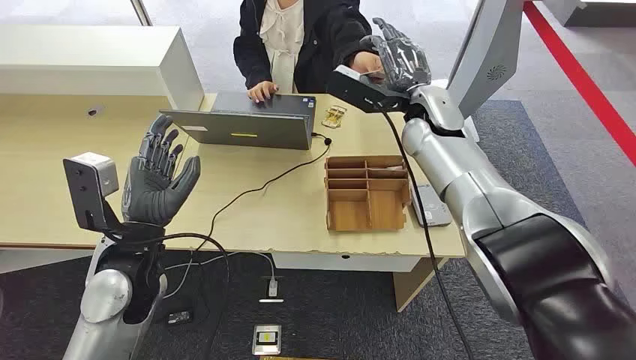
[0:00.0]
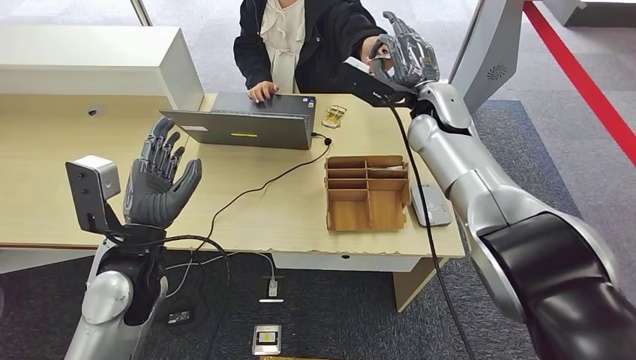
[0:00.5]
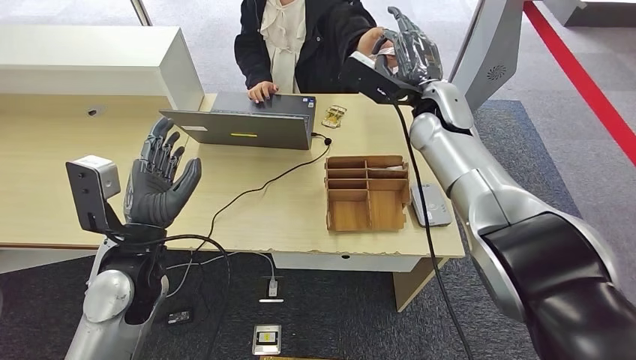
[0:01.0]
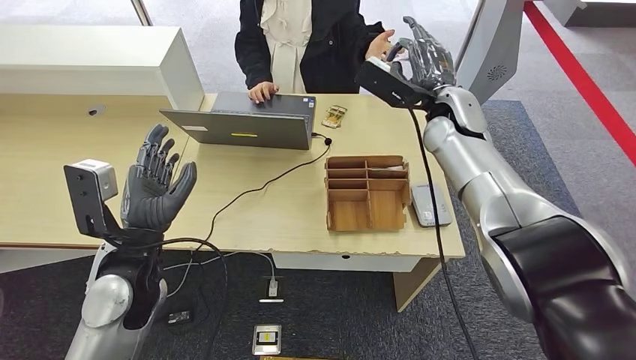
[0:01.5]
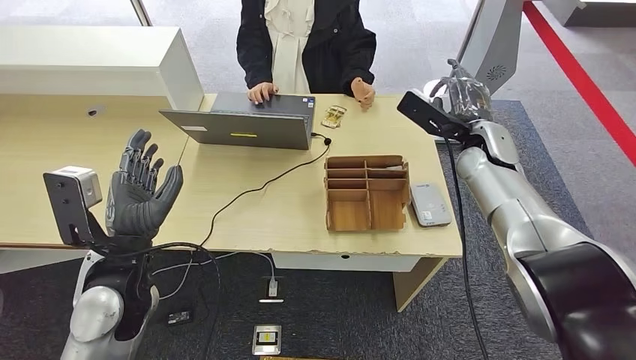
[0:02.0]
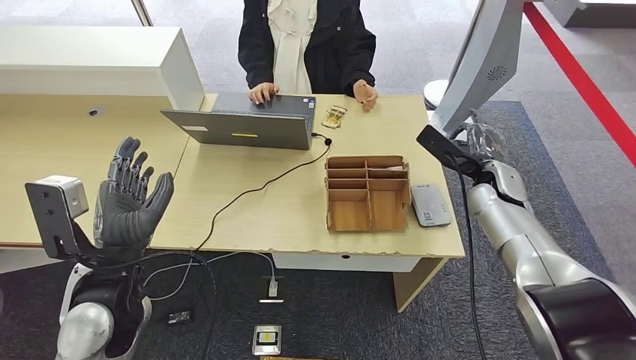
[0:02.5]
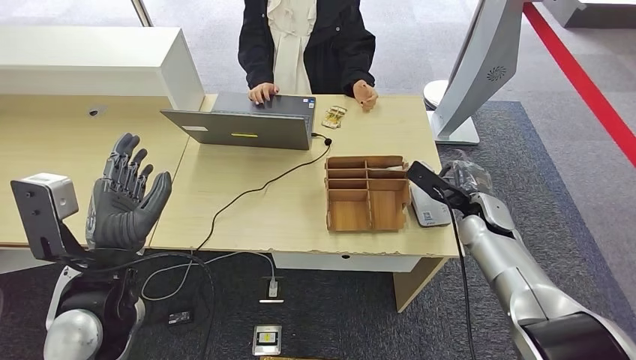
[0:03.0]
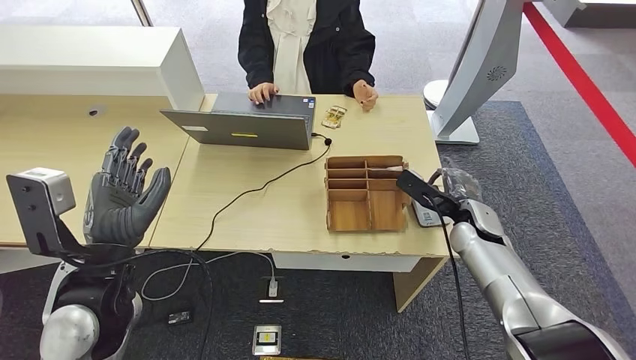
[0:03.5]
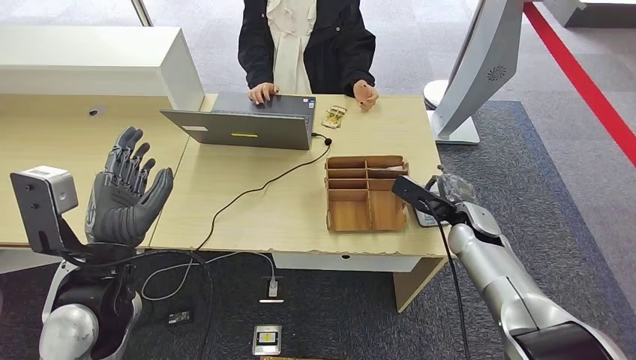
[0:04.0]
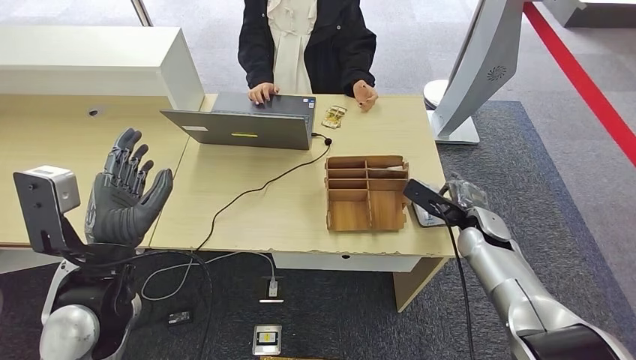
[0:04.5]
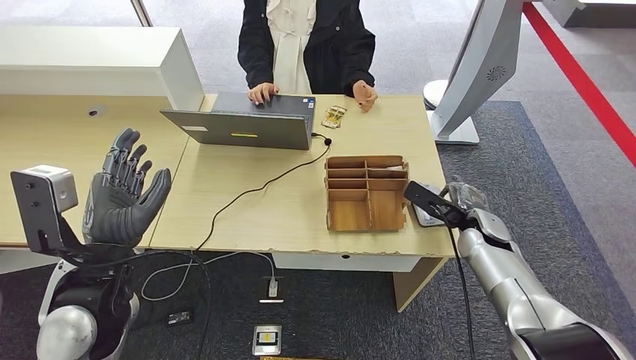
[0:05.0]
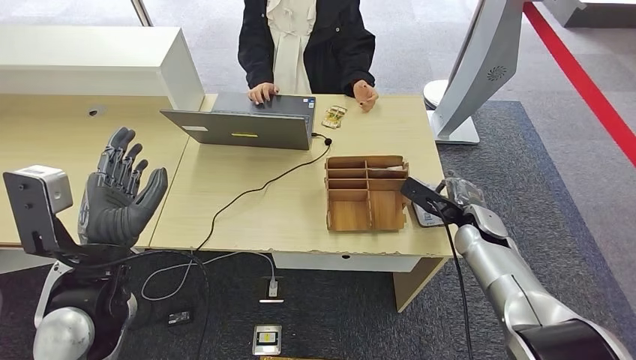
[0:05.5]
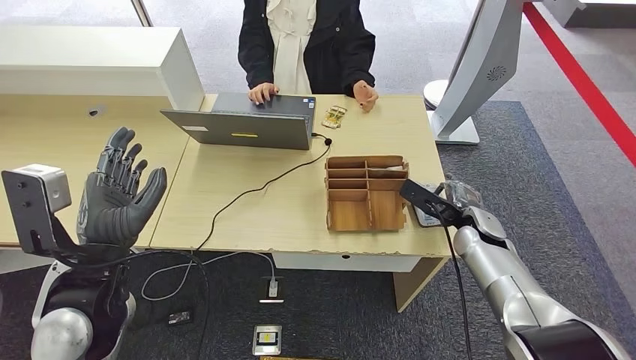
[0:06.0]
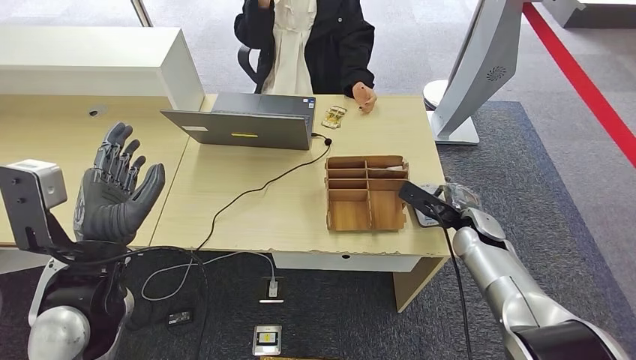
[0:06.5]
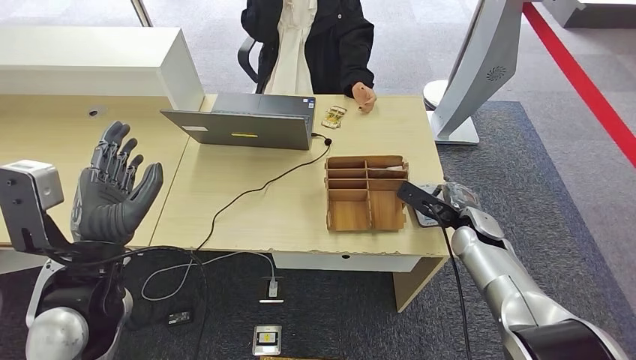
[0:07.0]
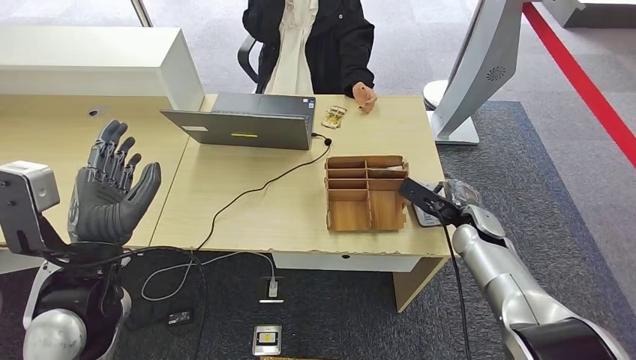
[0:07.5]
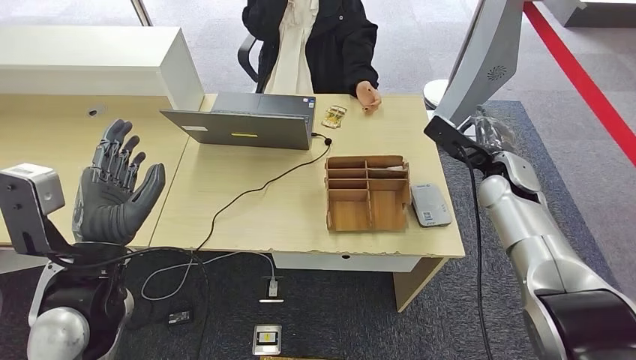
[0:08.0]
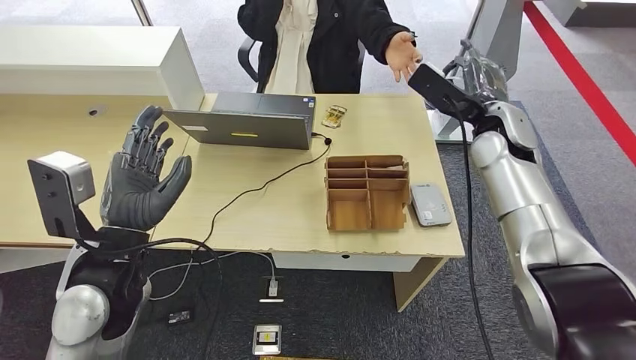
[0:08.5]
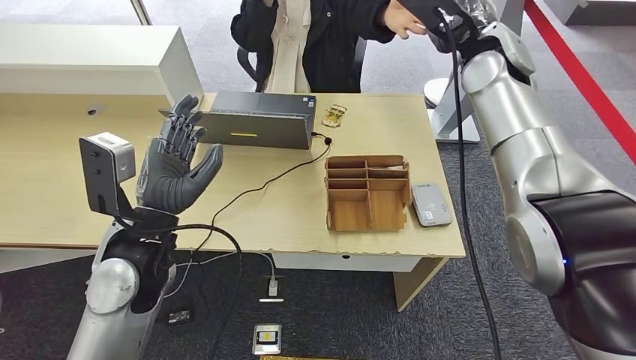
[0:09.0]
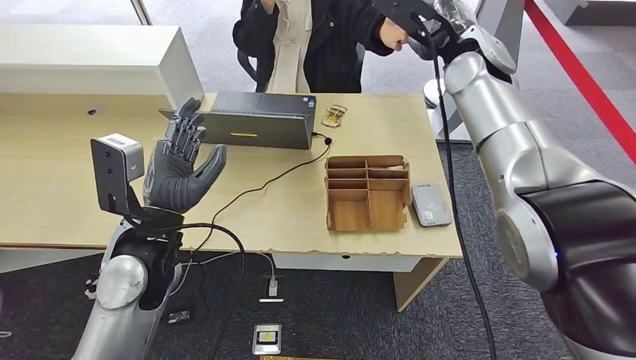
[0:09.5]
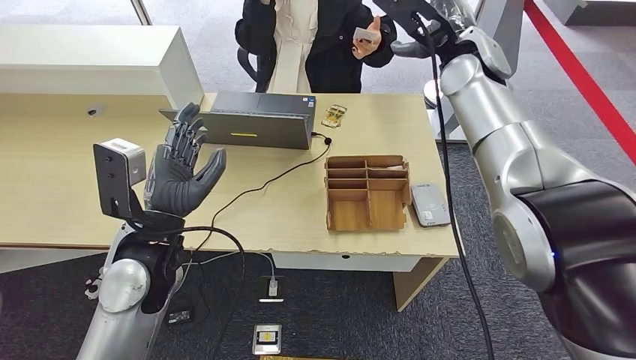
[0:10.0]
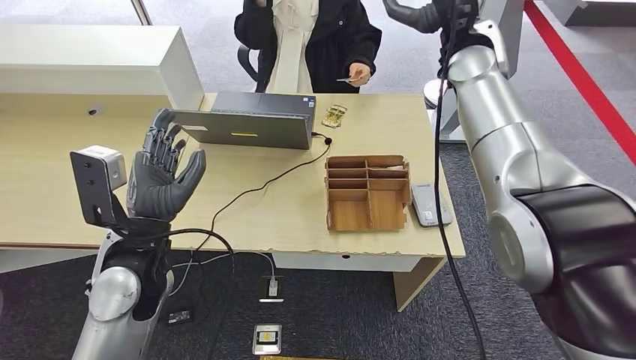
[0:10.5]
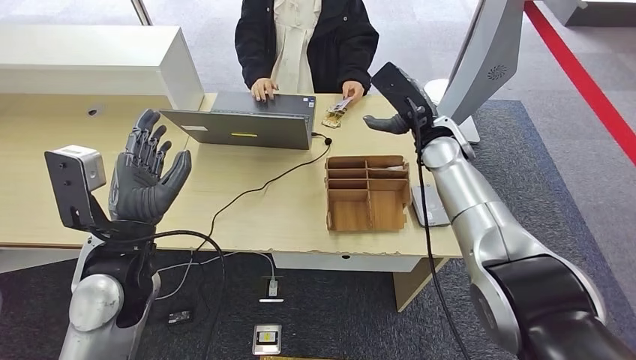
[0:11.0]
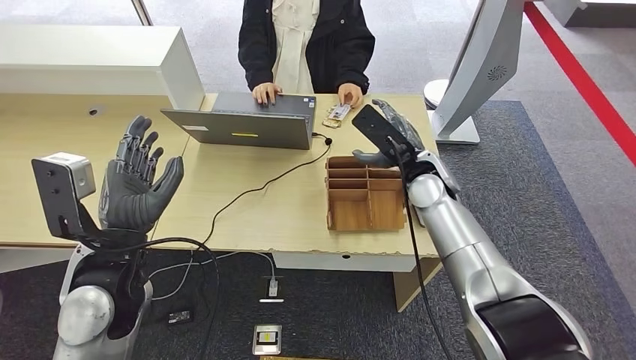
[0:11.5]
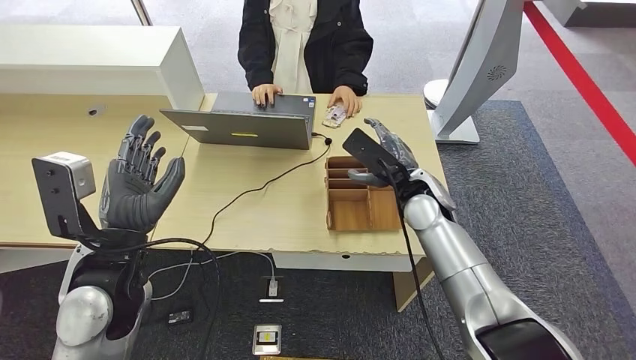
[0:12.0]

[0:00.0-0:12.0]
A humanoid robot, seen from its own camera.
Step, 0:00.0 to 0:01.0: Take the ID card from the person's hand.
Step, 0:01.5 to 0:08.5: Place the ID card on the card reader.
Step, 0:09.0 to 0:11.0: Hand the ID card to the person.
0:04.0 to 0:06.0: The hands make only small movements.
0:06.0 to 0:08.0: The right hand heads upward, covering some 10 cm.

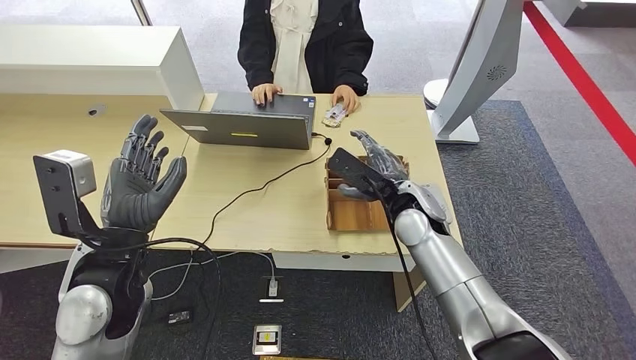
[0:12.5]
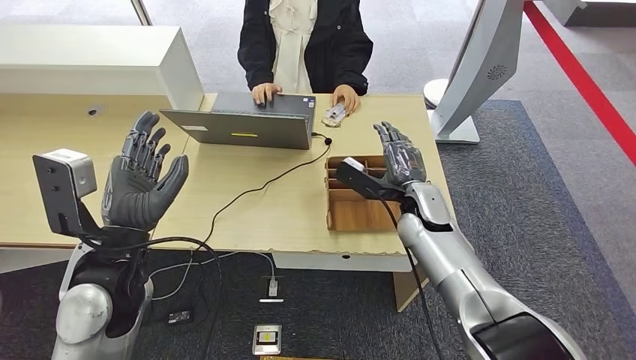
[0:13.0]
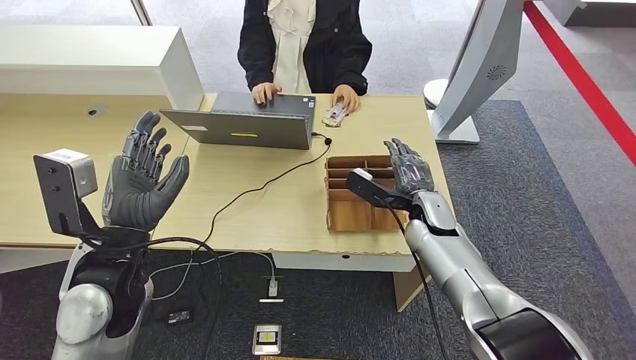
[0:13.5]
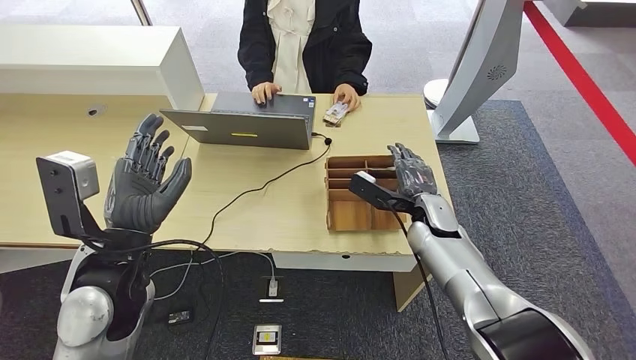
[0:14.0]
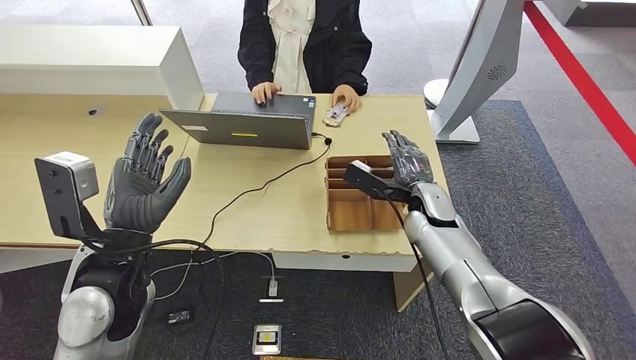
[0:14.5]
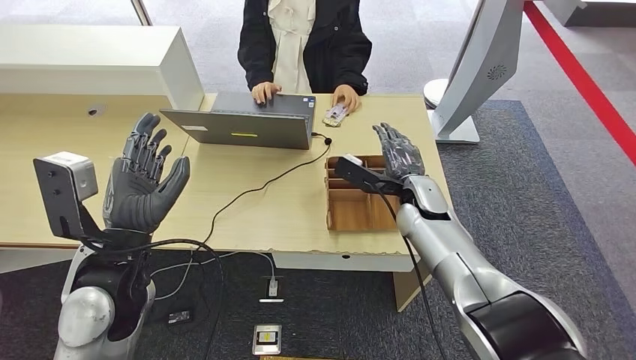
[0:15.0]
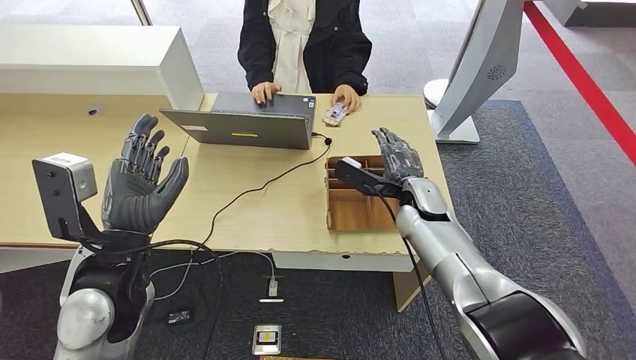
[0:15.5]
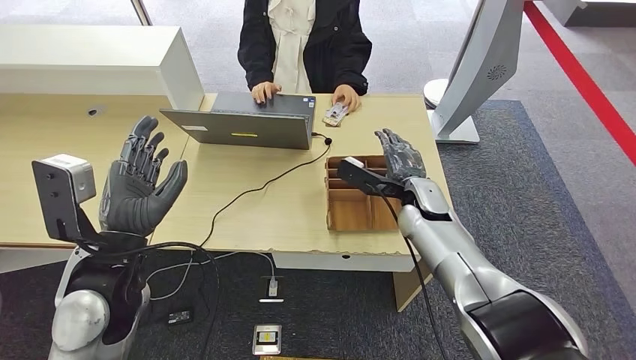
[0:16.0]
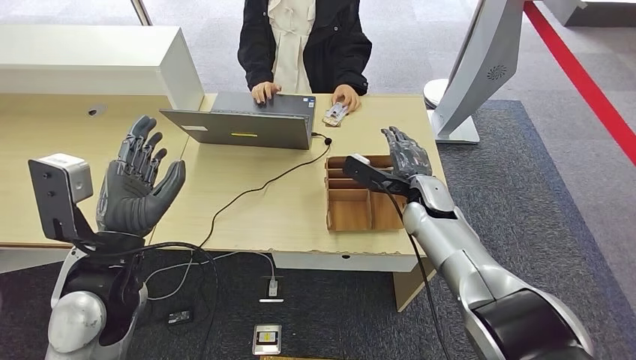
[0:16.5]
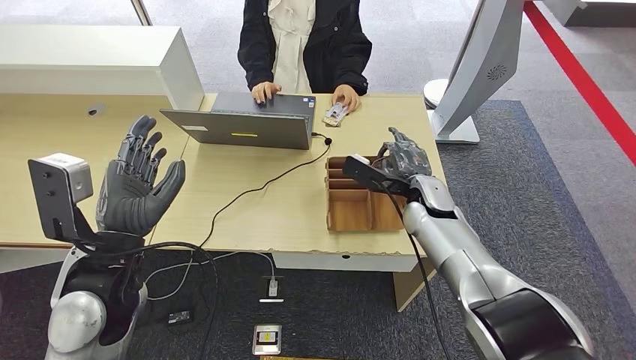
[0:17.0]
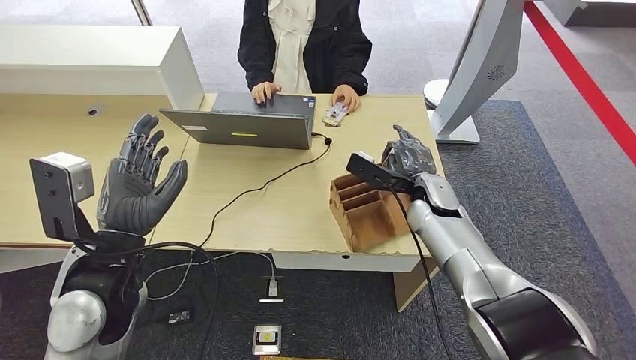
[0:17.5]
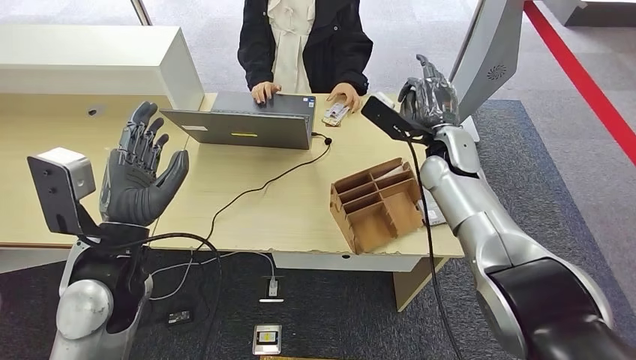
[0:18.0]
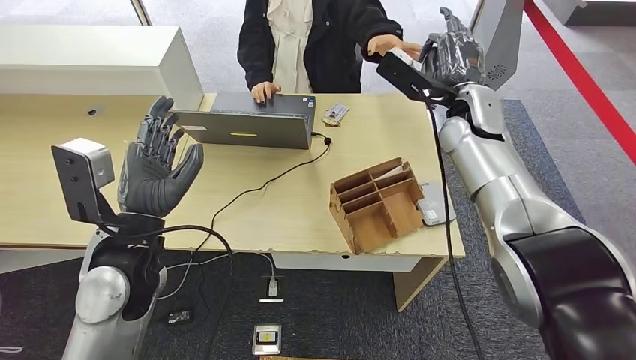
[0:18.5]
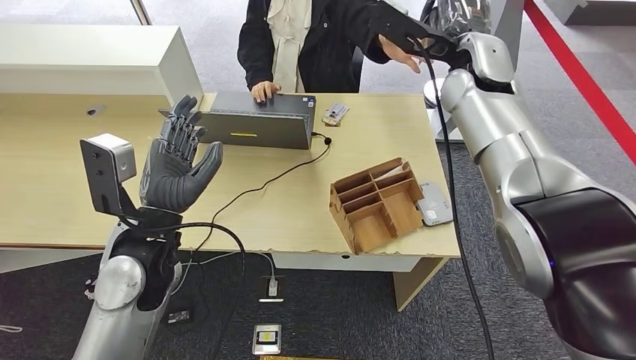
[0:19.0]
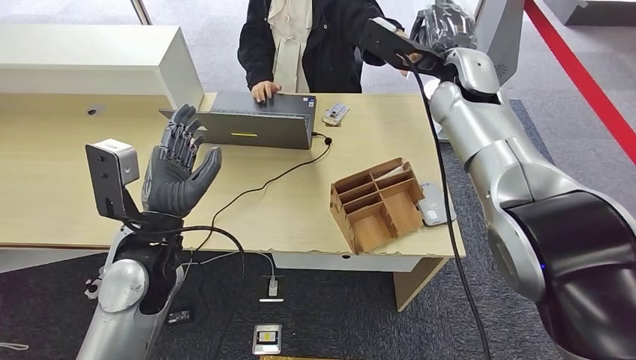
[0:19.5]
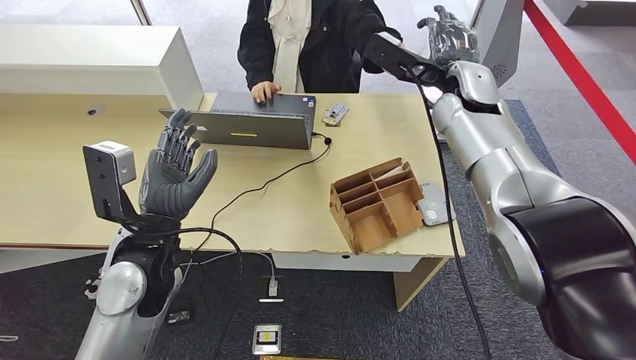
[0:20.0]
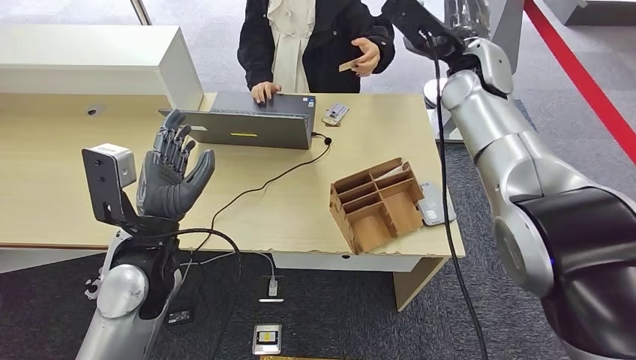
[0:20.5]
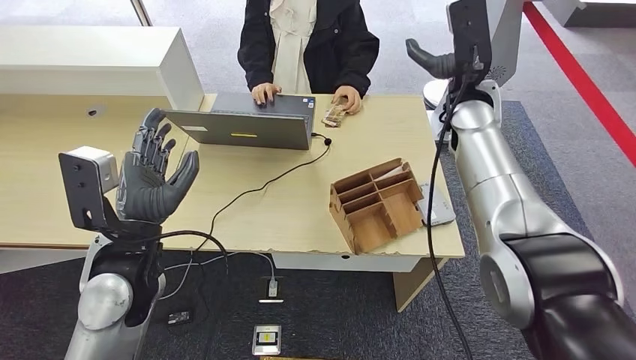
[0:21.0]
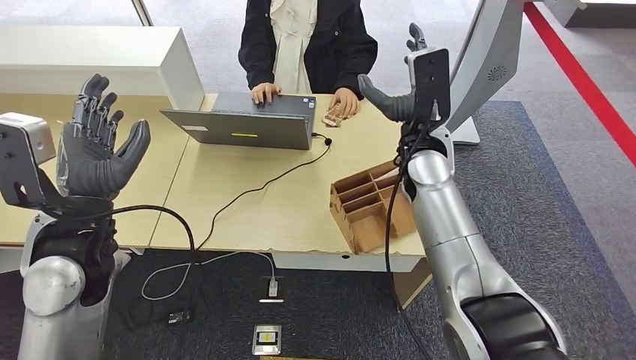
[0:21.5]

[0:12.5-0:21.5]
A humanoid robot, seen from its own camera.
Step, 0:17.0 to 0:19.0: Pick up the room key from the key card box.
Step, 0:19.5 to 0:21.5: Hand the room key to the person.
0:12.5 to 0:14.5: The right hand changes place by some 5 cm.
0:14.5 to 0:17.0: The hands move only a little.
